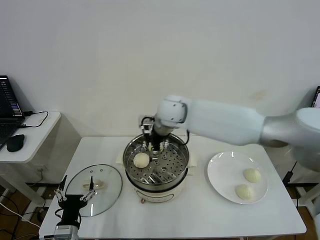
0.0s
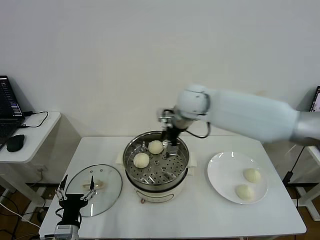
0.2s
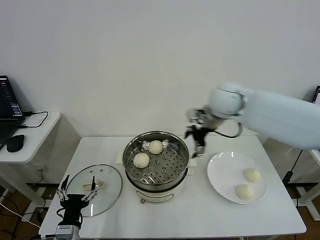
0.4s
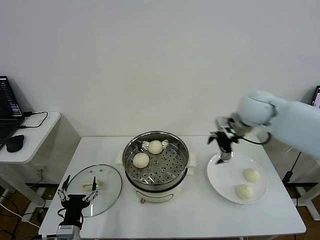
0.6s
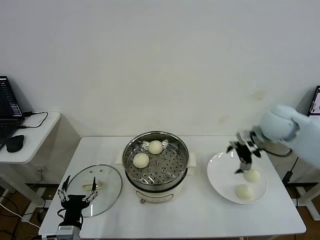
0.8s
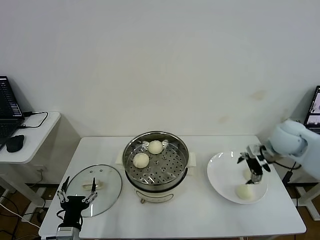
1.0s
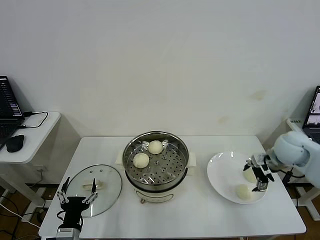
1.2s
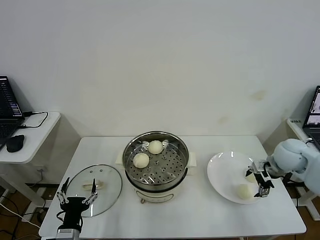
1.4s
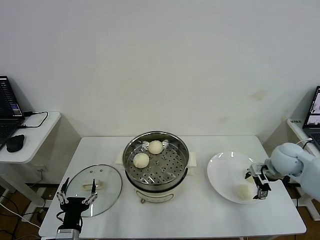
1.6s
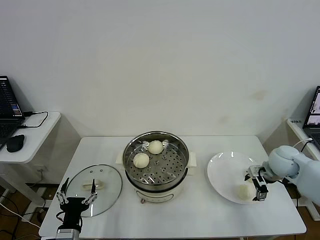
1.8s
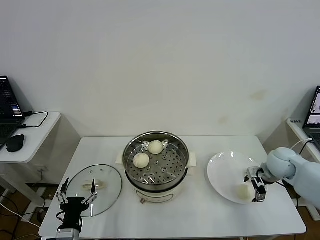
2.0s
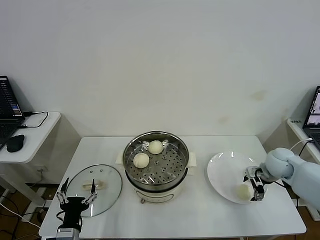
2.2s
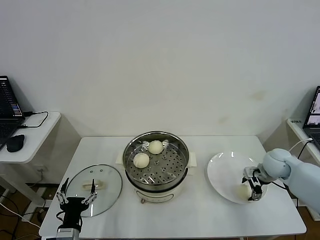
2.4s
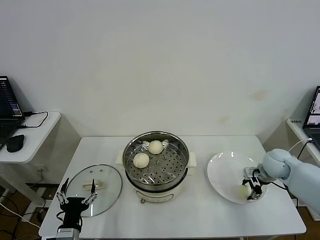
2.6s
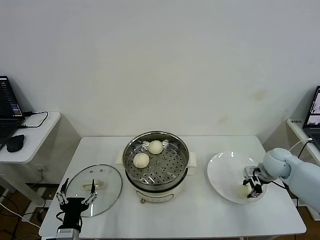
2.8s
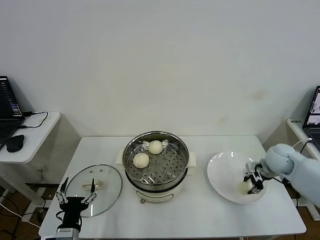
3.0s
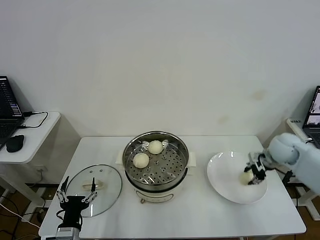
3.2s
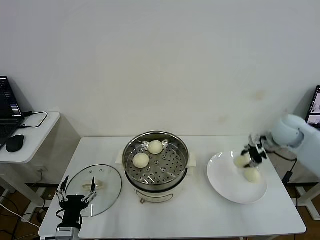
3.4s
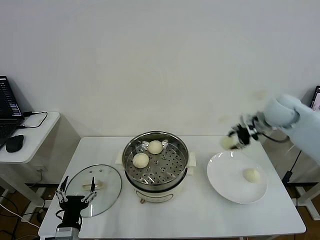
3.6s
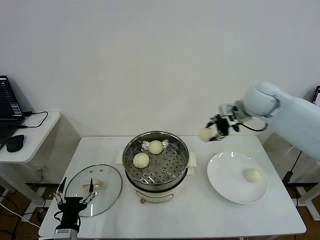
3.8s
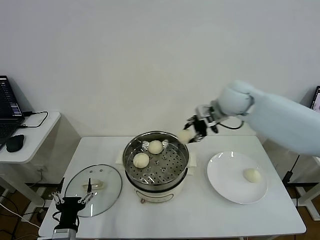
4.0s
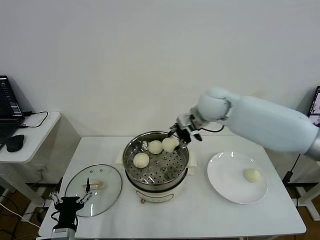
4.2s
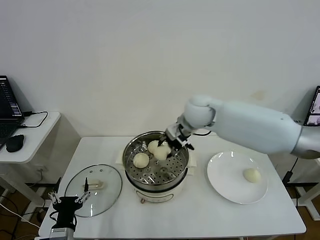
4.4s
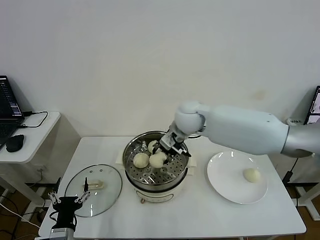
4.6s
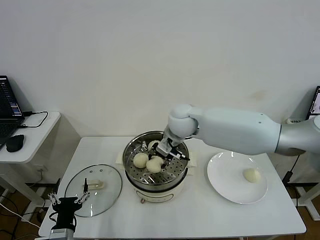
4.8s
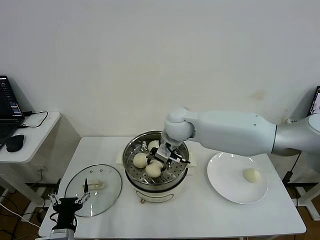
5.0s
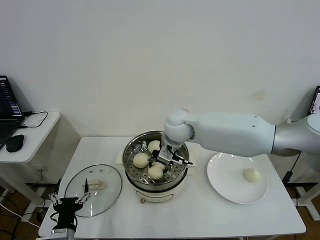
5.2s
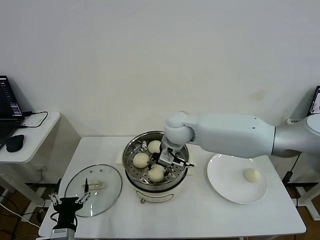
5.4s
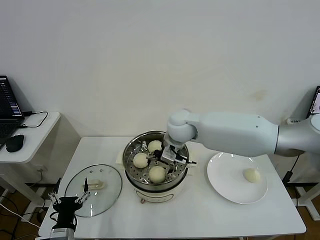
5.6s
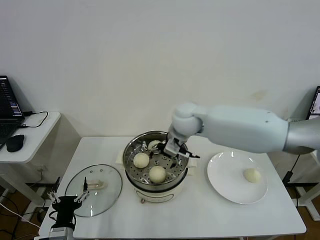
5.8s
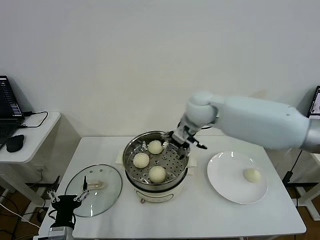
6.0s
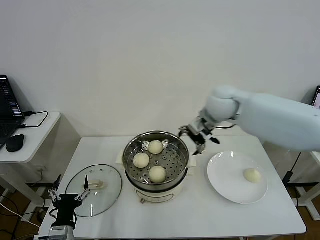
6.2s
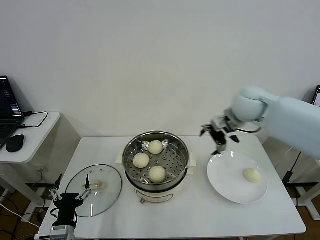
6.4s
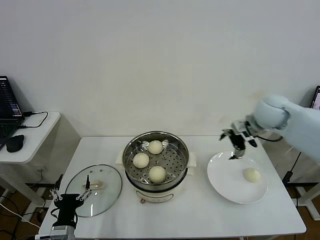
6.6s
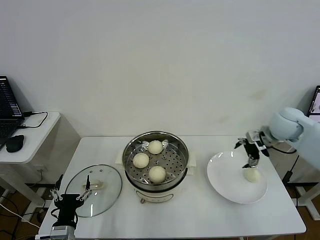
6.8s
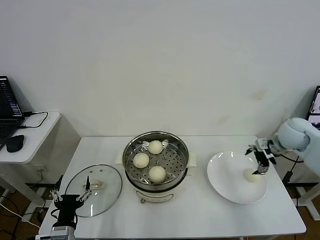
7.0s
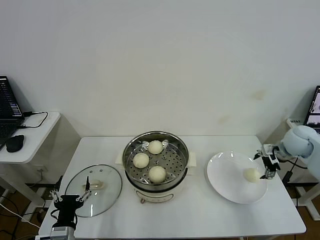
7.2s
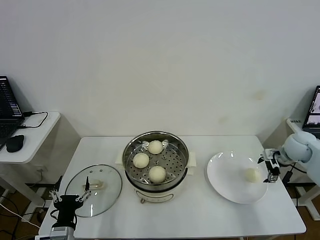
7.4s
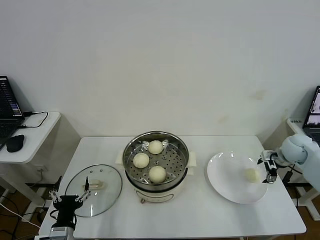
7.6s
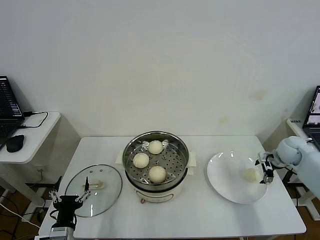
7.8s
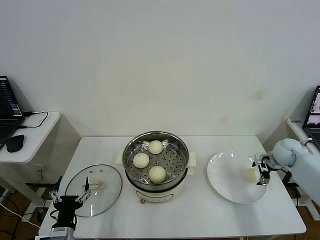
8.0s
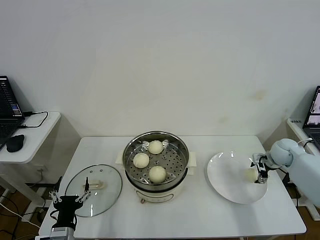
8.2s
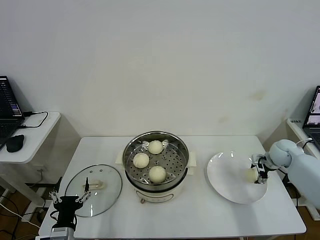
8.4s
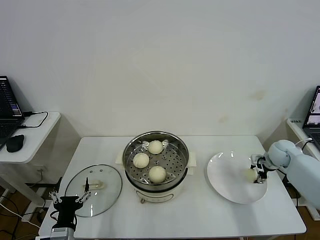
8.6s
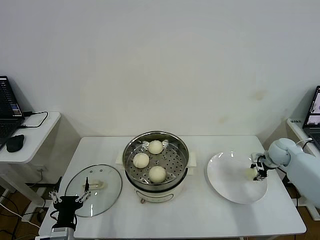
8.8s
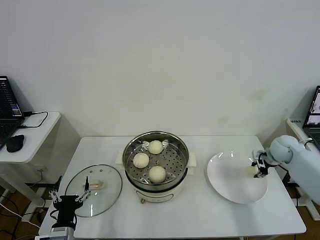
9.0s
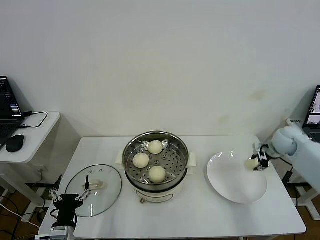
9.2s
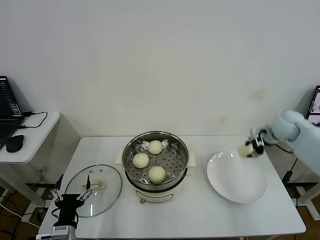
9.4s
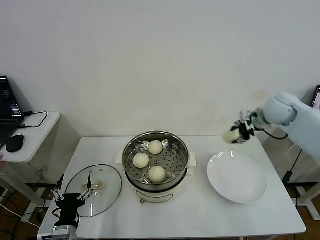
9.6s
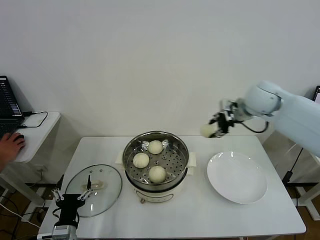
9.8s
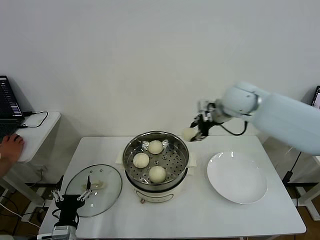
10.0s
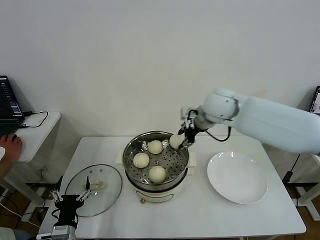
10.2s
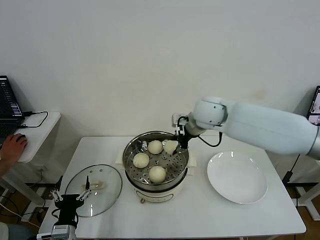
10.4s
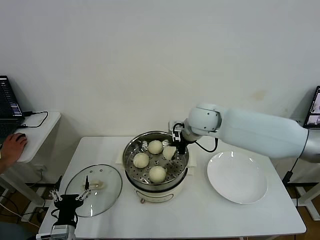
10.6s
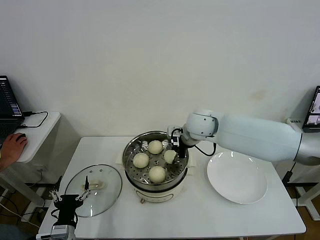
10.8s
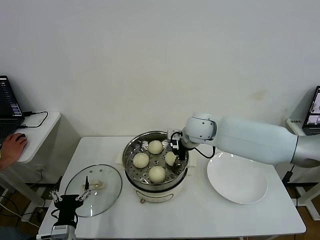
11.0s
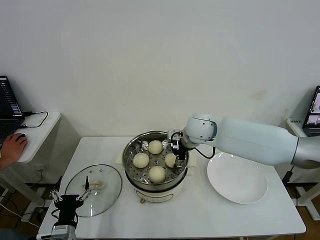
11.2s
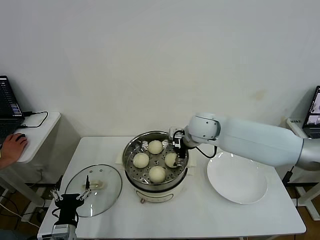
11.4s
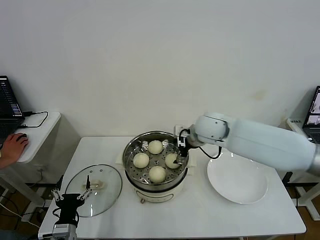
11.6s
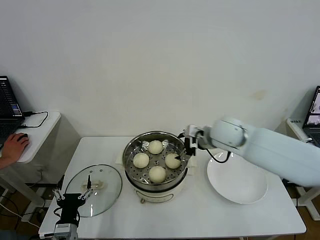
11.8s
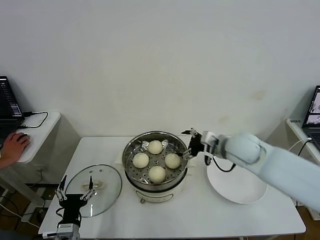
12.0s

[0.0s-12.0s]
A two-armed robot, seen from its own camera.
Task of the whole recording: take steamed baozi put them in steamer then cover it.
Step, 0.2s to 2.8s: Grasp the baozi in the plate with right gripper.
Step, 3.0s to 5.8s: Place the baozi on the steamer with right gripper.
Step, 6.0s to 8.8s: Grasp the baozi in the plate with right gripper.
Step, 9.0s to 11.4s: Place the baozi on the steamer with right gripper.
0.0s to 1.6s: The right gripper heads to the right and downward, covering roughly 40 cm.
1.6s to 3.0s: The right gripper closes its fingers.
3.0s to 4.4s: The right gripper is displaced to the left and upward by about 35 cm.
4.4s to 6.0s: The right gripper reaches about 5 cm to the left, then returns, and opens up.
6.0s to 7.6s: The right gripper goes approximately 40 cm to the right and downward.
7.6s to 9.0s: The right gripper closes.
9.0s to 10.4s: The right gripper heads to the left and upward, covering roughly 35 cm.
10.4s to 12.0s: The right gripper shifts roughly 15 cm to the right, backward and downward, and opens its fingers.

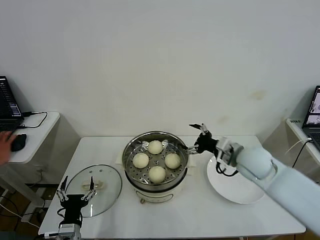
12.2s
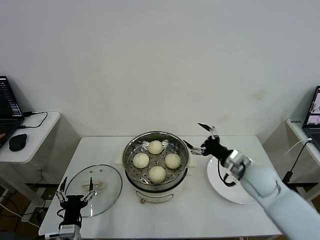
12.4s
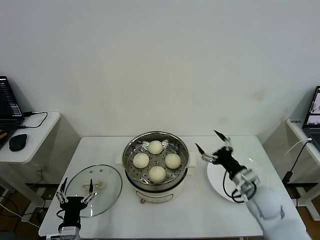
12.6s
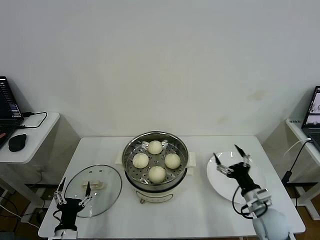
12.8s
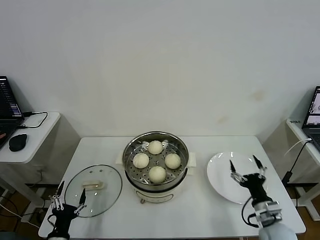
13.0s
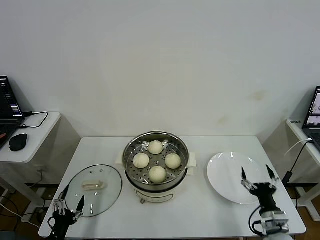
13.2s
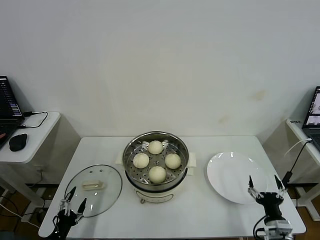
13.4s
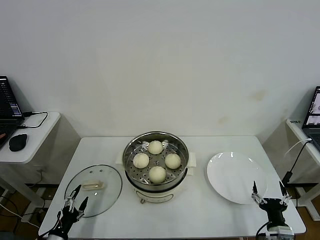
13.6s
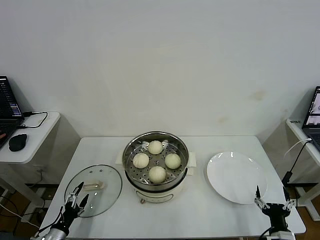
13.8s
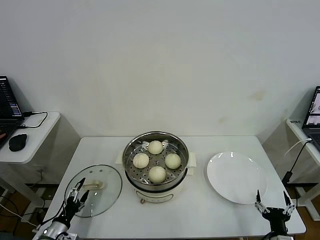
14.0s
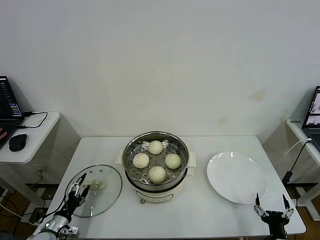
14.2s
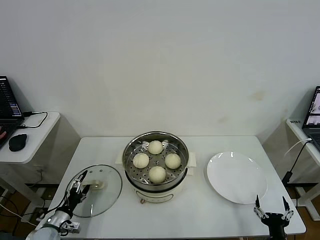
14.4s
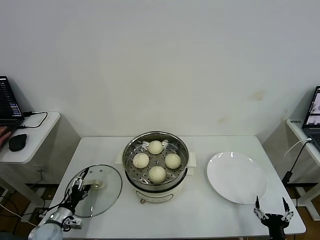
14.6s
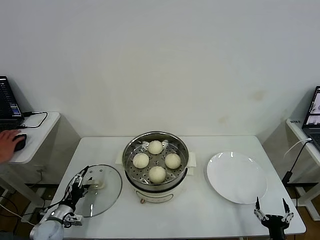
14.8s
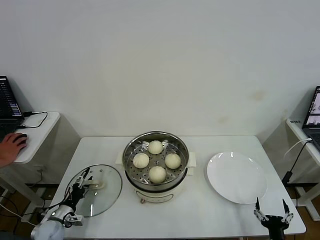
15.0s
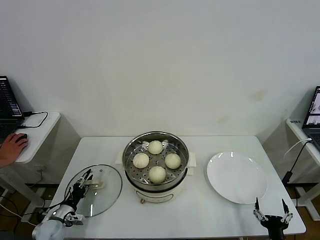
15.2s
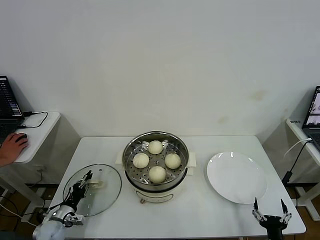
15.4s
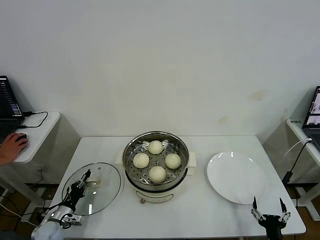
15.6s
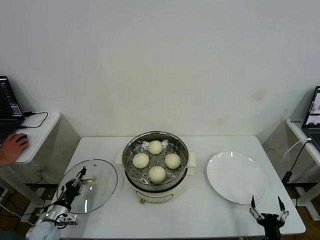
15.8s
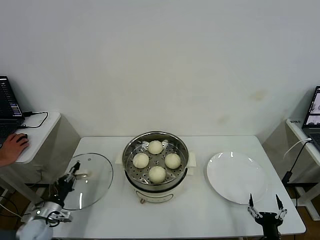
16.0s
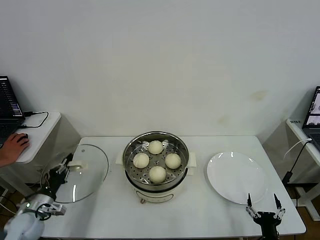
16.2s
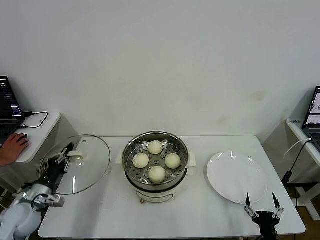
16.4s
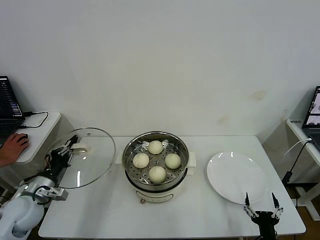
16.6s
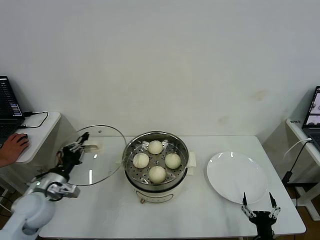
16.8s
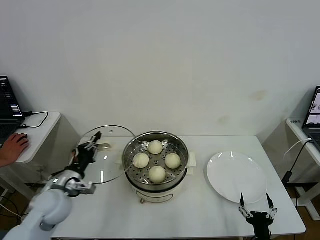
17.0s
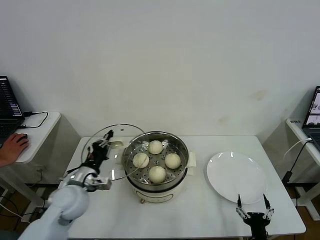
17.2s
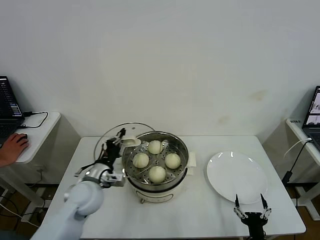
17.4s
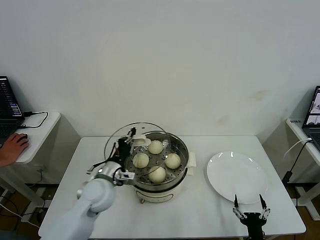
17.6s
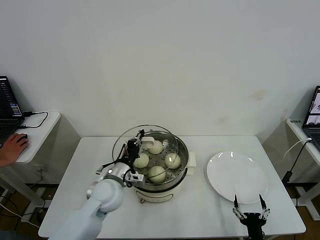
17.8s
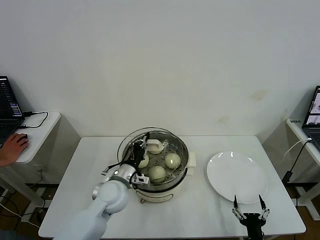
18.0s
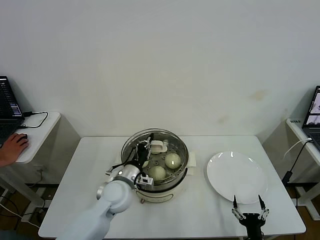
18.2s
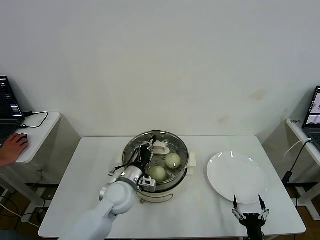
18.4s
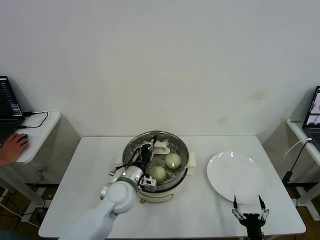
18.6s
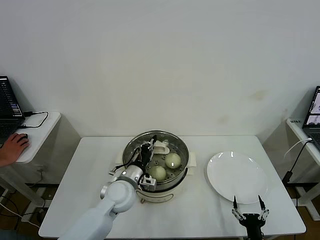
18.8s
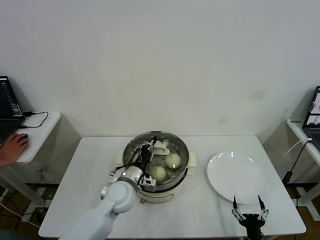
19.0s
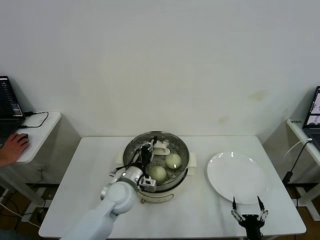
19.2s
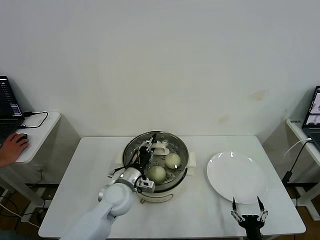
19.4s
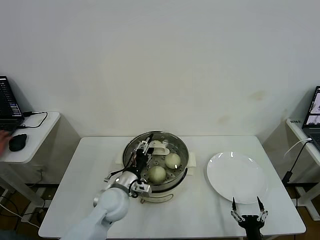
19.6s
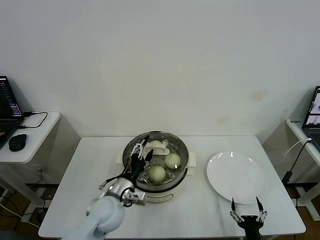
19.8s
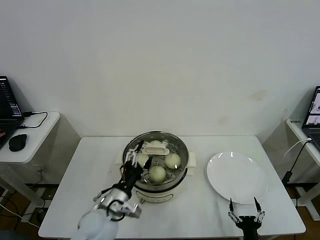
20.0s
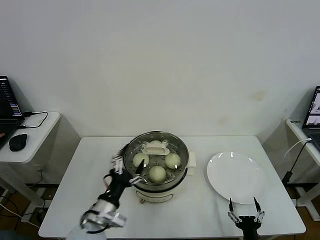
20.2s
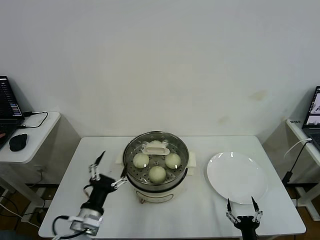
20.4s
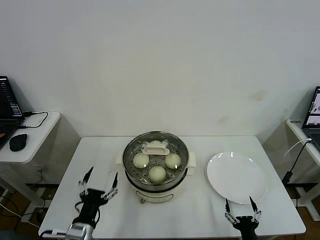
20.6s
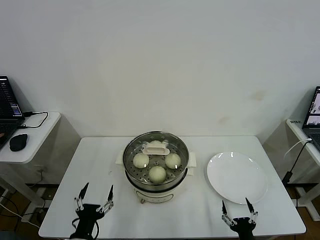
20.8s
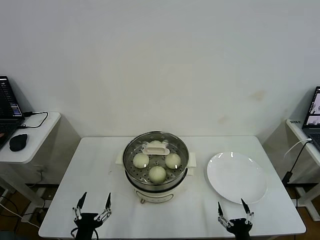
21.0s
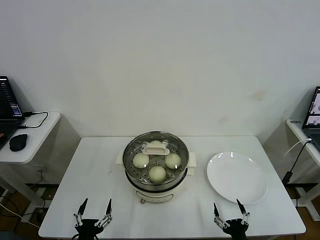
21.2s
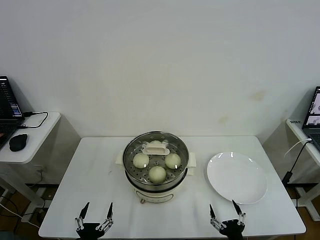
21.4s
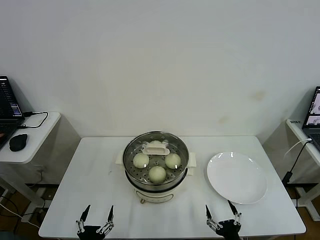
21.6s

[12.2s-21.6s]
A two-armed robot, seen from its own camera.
Task of the whole recording: take steamed baozi put them in steamer then cover it.
Step, 12.2s to 15.8s: Grasp the pot lid with left gripper.
Step, 16.0s to 19.6s: Place the pot lid on the steamer with left gripper.
12.2s to 13.8s: The left gripper goes about 15 cm to the left and downward, while the right gripper goes about 35 cm backward, downward and to the right.
13.8s to 15.4s: The left gripper goes some 10 cm forward, and closes its fingers.
15.4s to 17.0s: The left gripper goes roughly 25 cm upward and to the right.
17.0s to 18.4s: The left gripper moves to the right, about 20 cm.
18.4s to 20.0s: The left gripper shifts roughly 10 cm backward, and opens its fingers.
20.0s to 21.6s: The left gripper travels backward, downward and to the left by about 25 cm. The right gripper changes place by some 5 cm.
